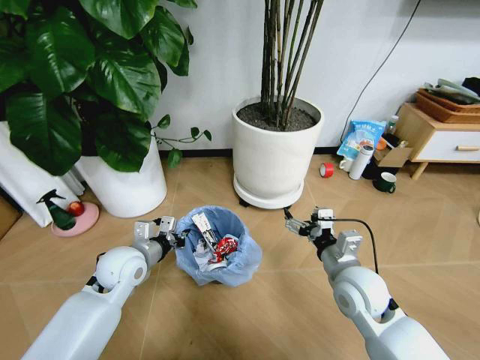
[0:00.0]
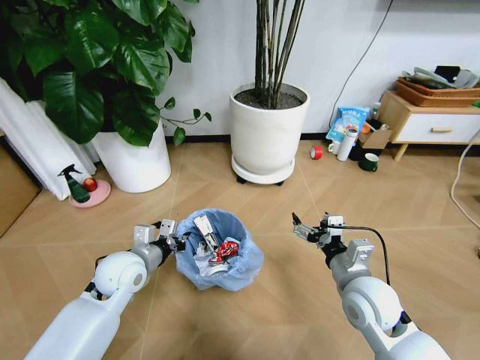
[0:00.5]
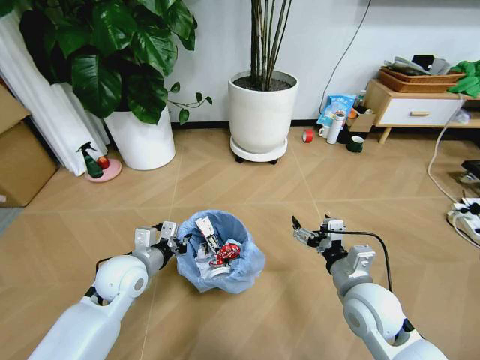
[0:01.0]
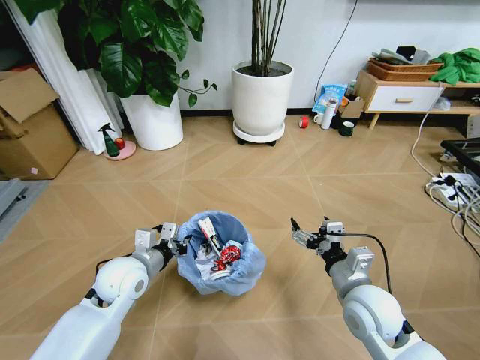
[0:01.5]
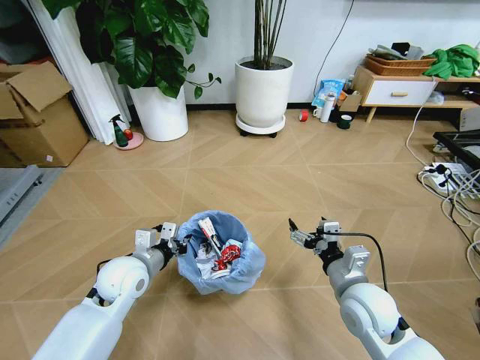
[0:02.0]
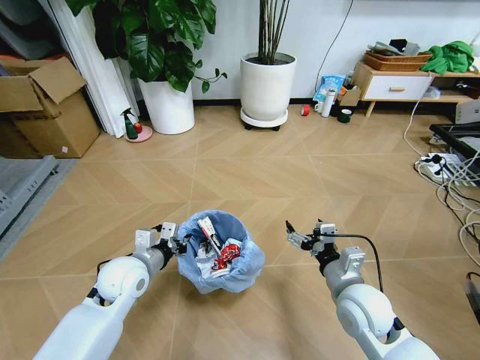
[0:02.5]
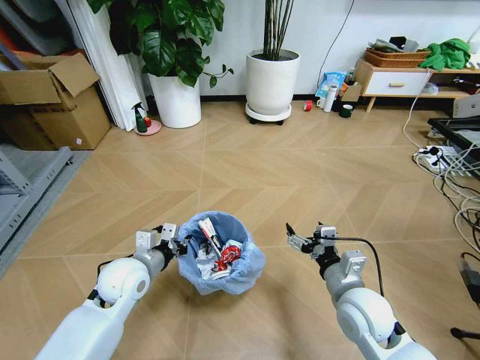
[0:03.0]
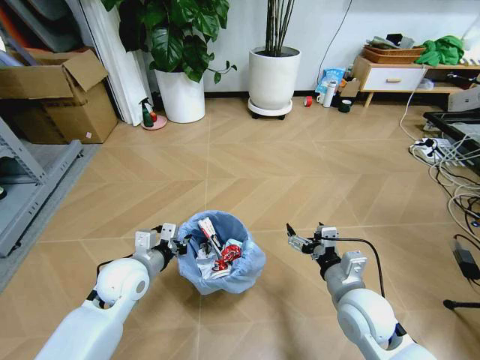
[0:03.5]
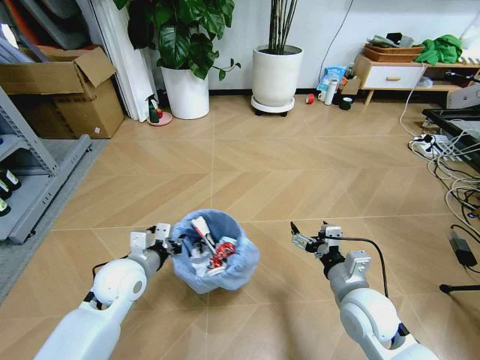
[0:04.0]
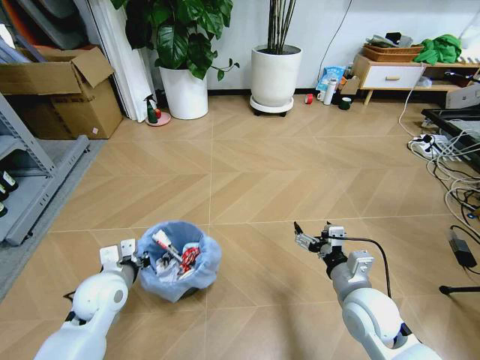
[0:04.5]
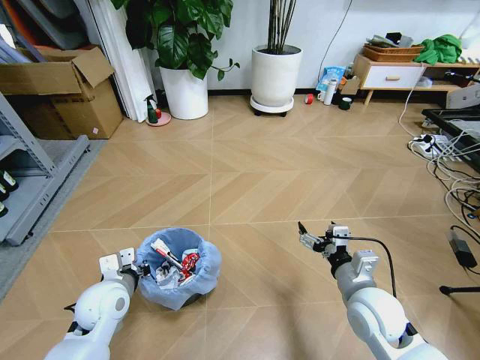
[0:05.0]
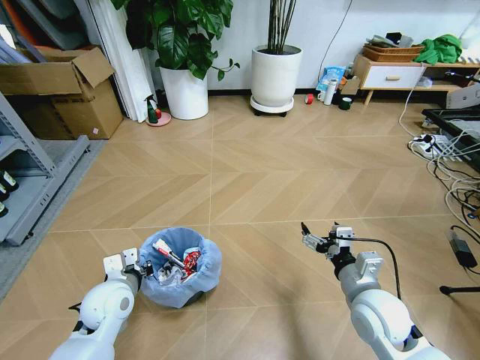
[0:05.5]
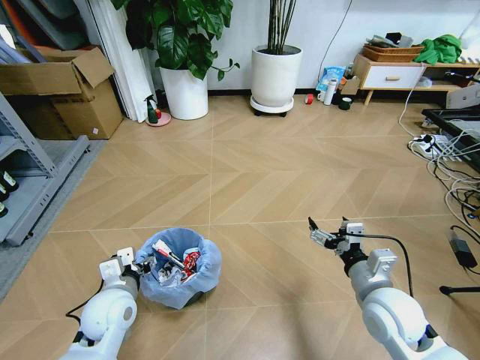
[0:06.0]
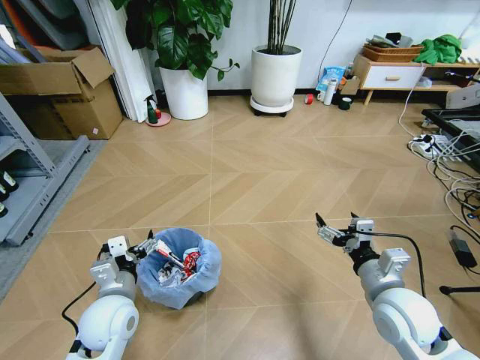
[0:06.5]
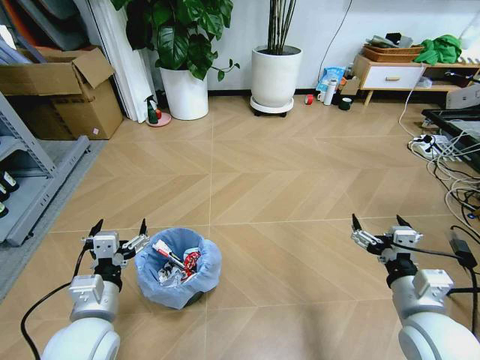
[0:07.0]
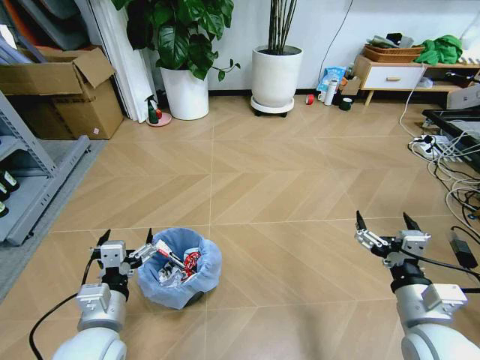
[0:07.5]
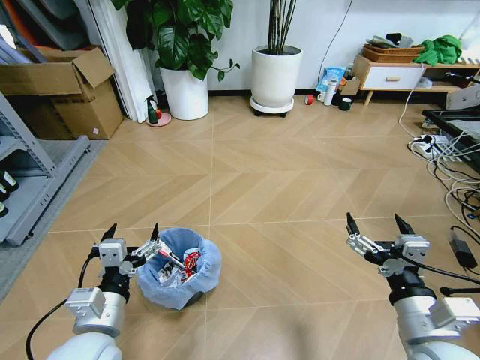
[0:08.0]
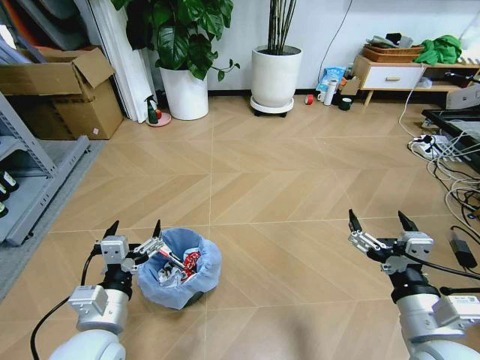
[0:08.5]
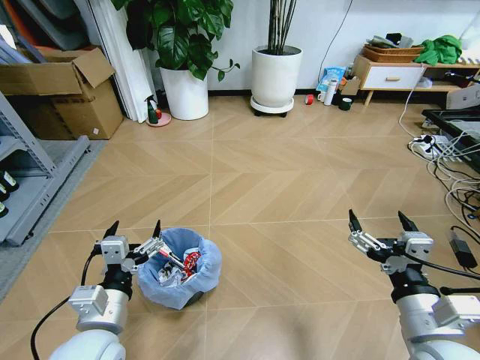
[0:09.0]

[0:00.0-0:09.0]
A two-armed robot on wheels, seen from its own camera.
Task of the whole recording: Pick up the trash bin and place the garbage on the floor into it.
0:02.0 to 0:04.5: The left gripper moves some 5 cm.
0:04.5 to 0:07.0: The left gripper is displaced backward and upward by some 10 cm, and opens its fingers. Meanwhile the right gripper goes some 10 cm to the right and backward.
0:07.0 to 0:09.0: The right gripper changes place by some 5 cm.
